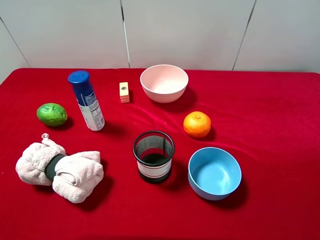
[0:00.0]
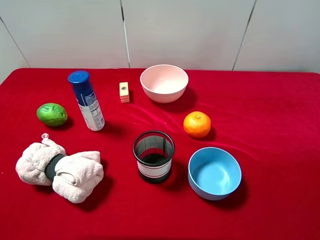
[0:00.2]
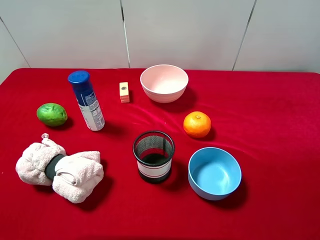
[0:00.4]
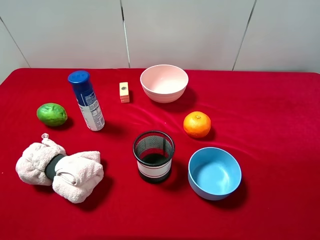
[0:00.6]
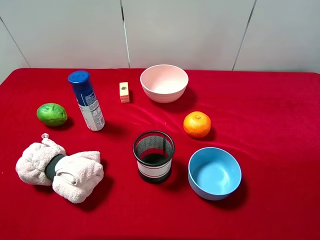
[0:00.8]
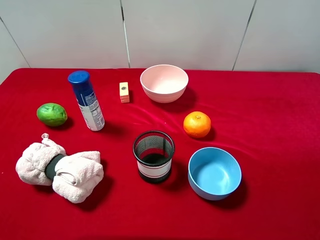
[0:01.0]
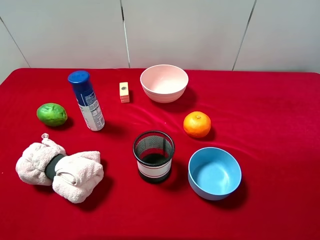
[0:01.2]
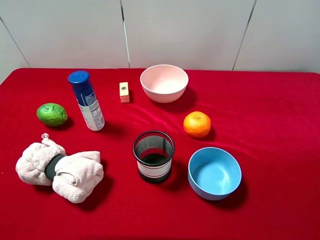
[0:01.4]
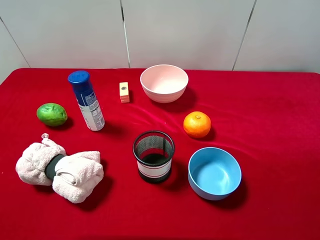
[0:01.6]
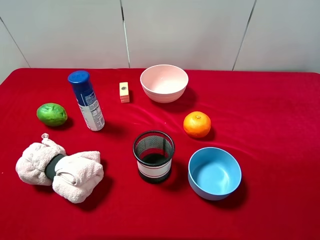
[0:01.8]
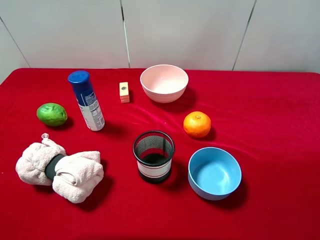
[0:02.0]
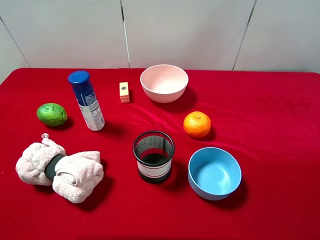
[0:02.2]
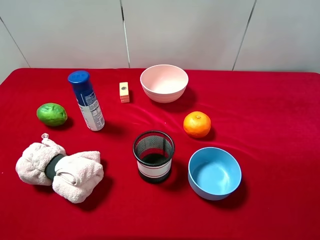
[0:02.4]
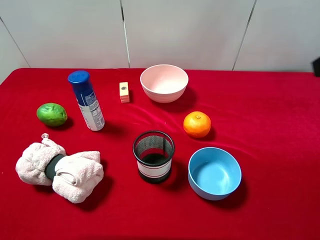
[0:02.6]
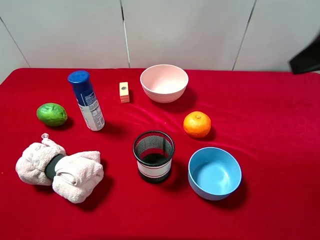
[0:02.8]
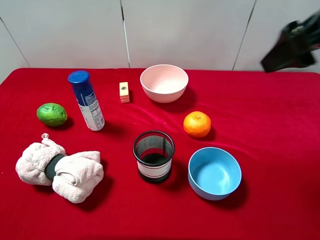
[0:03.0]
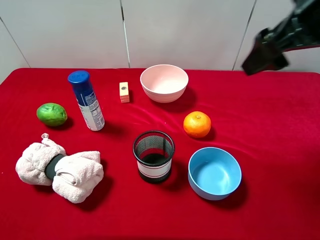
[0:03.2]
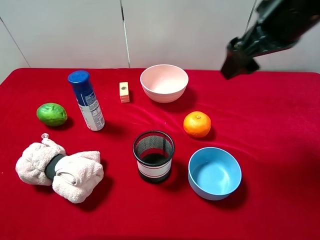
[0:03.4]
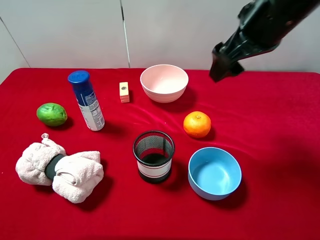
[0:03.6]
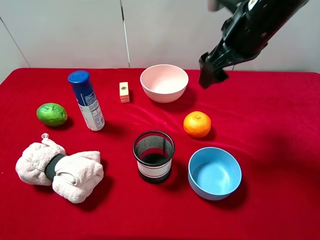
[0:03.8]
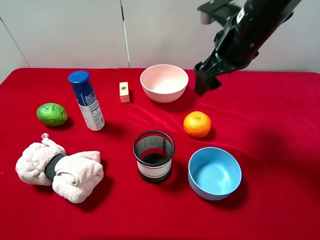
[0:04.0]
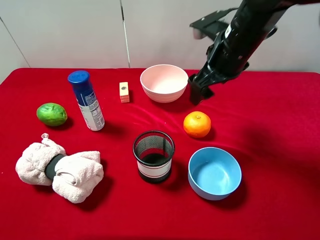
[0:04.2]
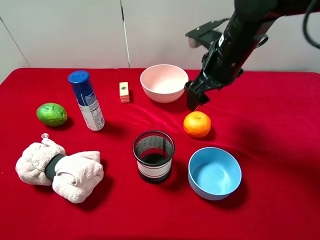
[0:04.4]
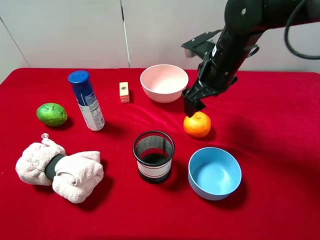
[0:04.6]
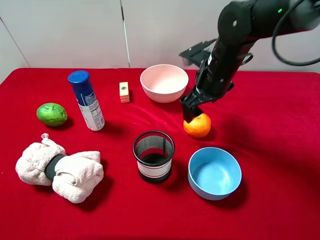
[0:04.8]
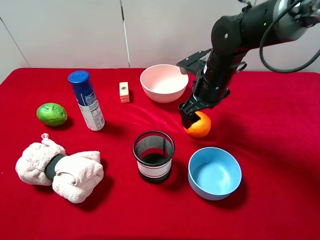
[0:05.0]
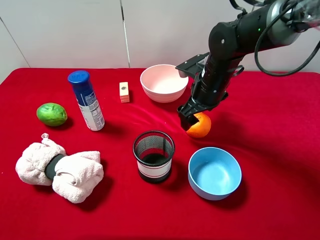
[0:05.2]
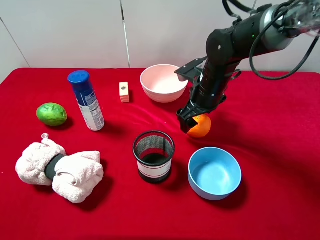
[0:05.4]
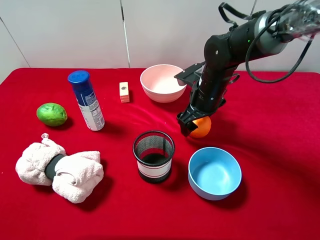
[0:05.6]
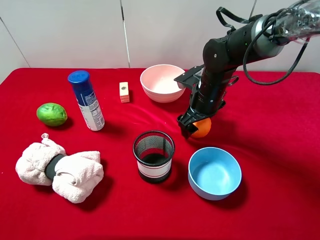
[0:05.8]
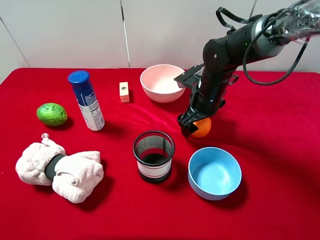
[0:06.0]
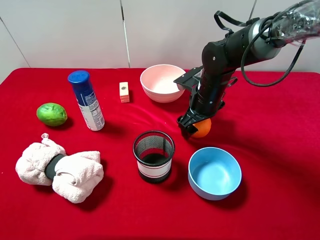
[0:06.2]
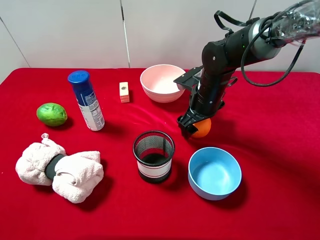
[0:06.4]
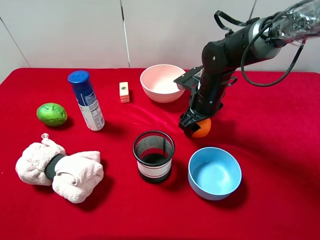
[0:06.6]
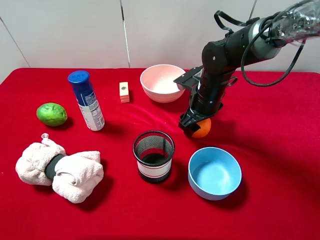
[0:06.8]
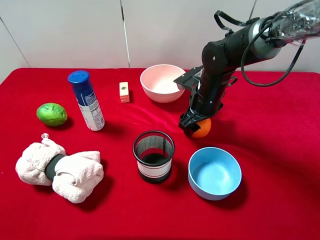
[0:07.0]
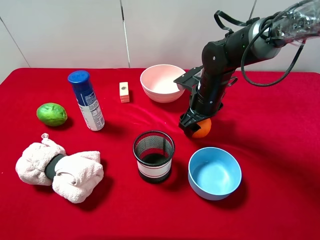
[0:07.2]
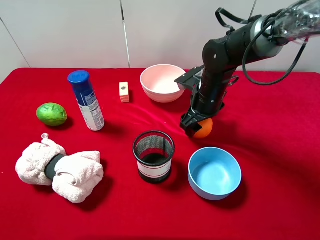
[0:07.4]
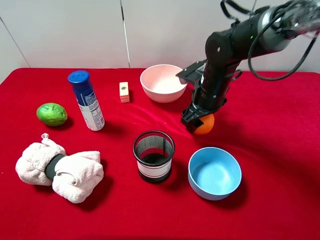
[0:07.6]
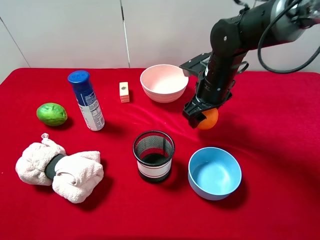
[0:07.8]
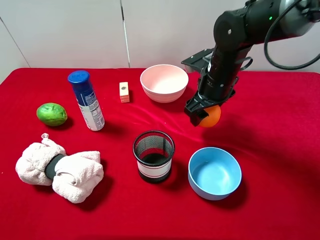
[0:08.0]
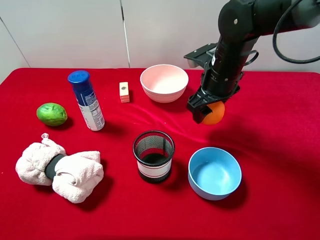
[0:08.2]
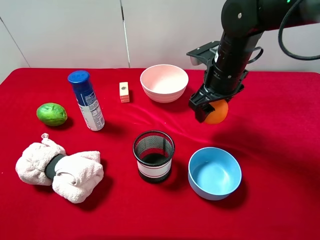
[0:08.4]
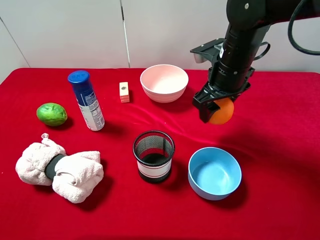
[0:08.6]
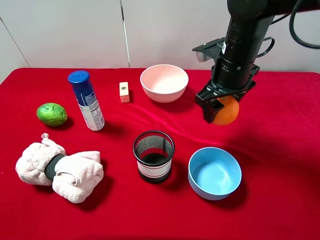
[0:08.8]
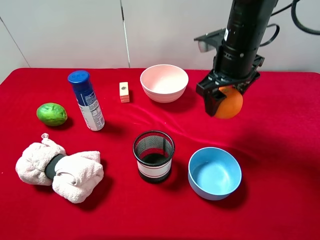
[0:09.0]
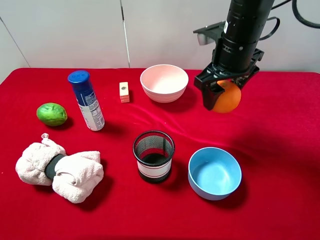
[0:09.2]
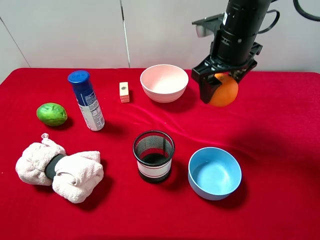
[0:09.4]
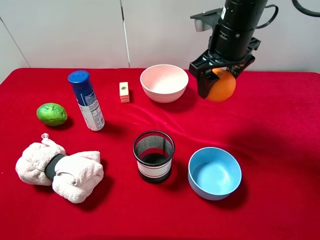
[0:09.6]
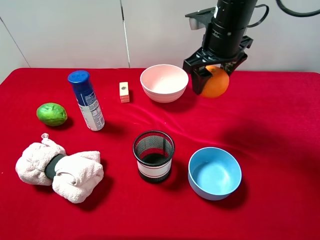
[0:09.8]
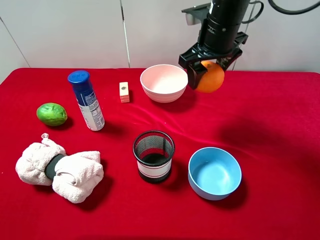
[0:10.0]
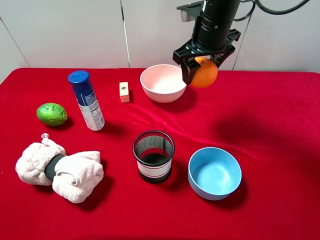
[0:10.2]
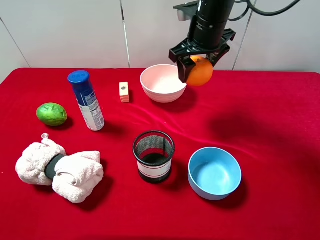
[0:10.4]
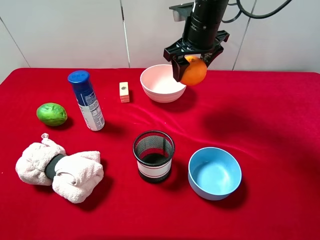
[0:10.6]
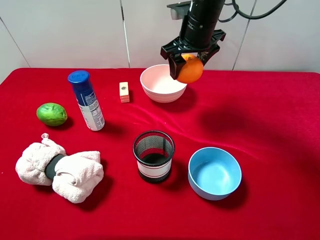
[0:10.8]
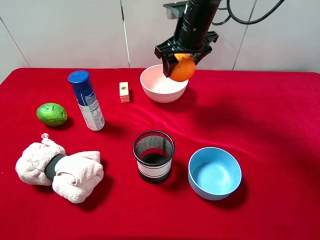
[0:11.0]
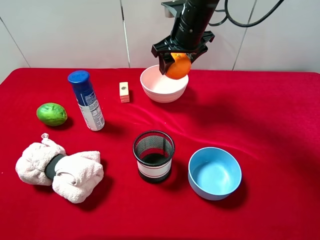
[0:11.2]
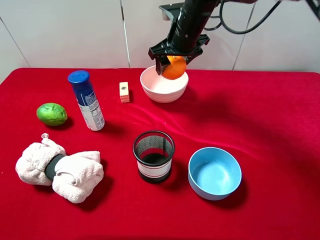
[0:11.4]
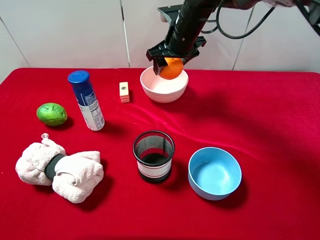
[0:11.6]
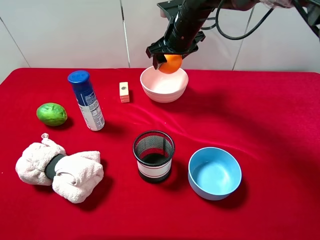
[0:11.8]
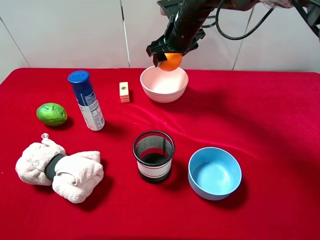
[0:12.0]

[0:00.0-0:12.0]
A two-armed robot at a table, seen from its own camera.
Task of the whole recording: pick up an item with a gripper and place it in a random container on the desktop.
0:00.0 to 0:01.6: Both grippers stay about where they are.
0:01.6 to 0:03.0: The right gripper goes about 20 cm forward.
0:03.0 to 0:04.4: The right gripper moves downward, to the left and forward, some 20 cm.
0:04.4 to 0:06.0: The right gripper shifts approximately 10 cm downward.
0:06.0 to 0:07.6: The right gripper closes up.
0:07.6 to 0:09.0: The right gripper heads upward, covering about 10 cm.
0:09.0 to 0:10.4: The right gripper goes approximately 5 cm forward.
0:10.4 to 0:12.0: The right gripper is displaced forward by about 5 cm.

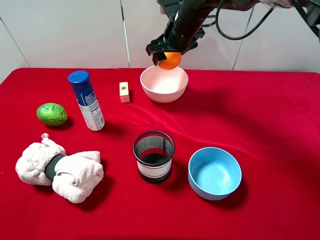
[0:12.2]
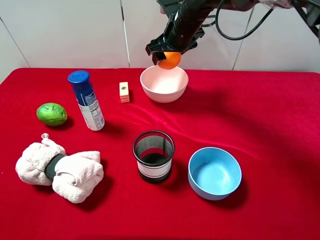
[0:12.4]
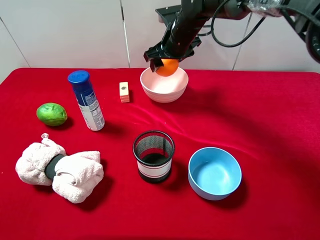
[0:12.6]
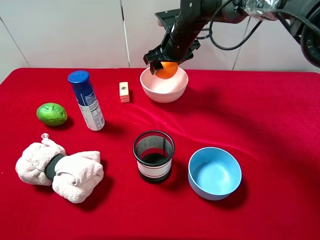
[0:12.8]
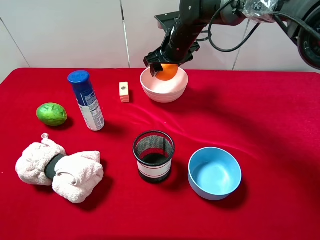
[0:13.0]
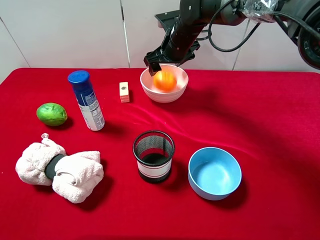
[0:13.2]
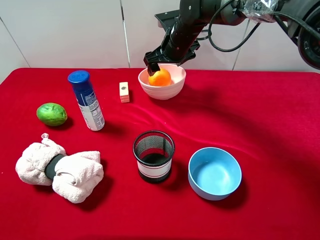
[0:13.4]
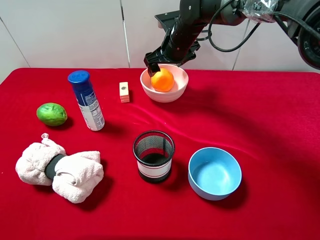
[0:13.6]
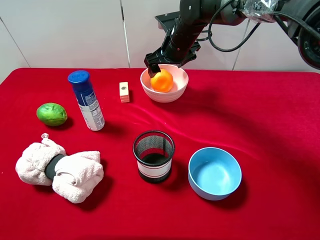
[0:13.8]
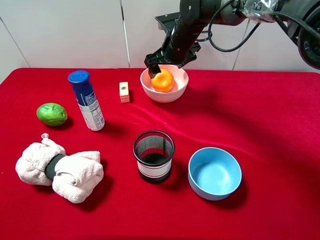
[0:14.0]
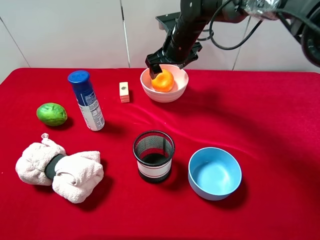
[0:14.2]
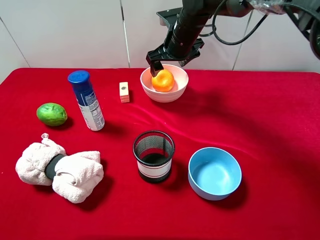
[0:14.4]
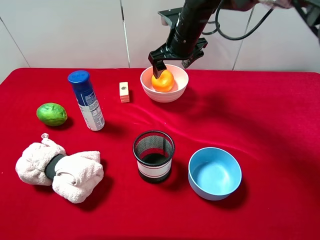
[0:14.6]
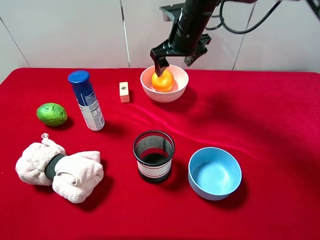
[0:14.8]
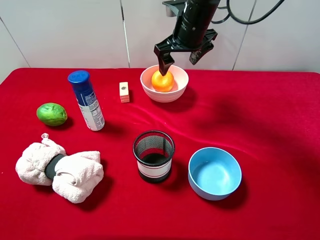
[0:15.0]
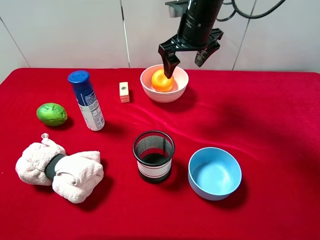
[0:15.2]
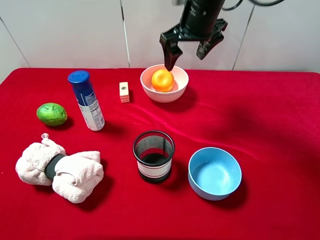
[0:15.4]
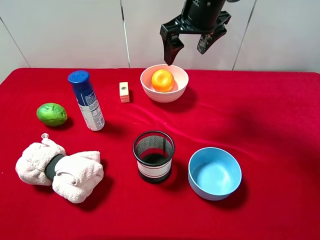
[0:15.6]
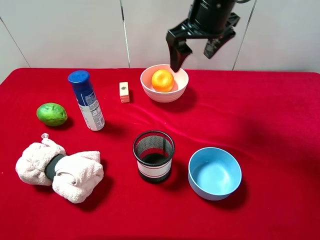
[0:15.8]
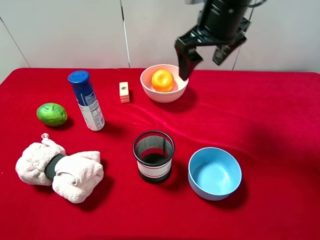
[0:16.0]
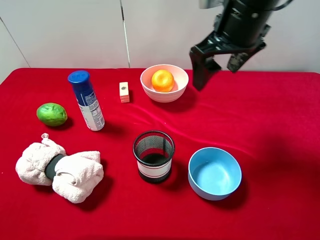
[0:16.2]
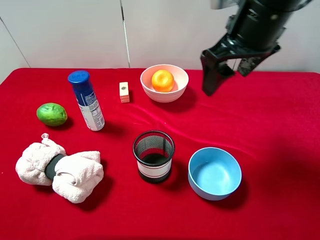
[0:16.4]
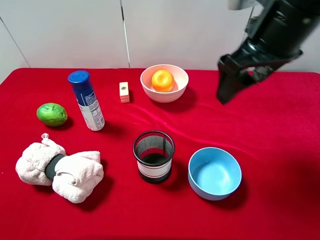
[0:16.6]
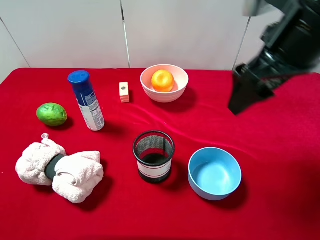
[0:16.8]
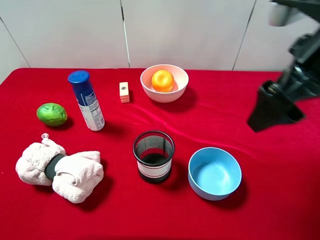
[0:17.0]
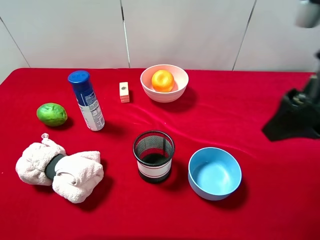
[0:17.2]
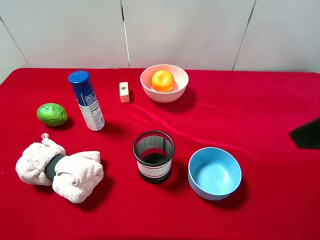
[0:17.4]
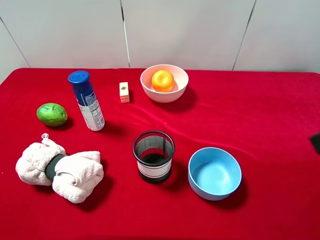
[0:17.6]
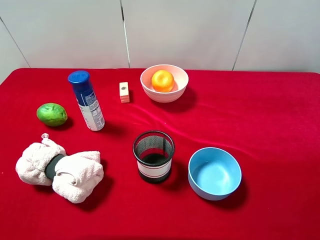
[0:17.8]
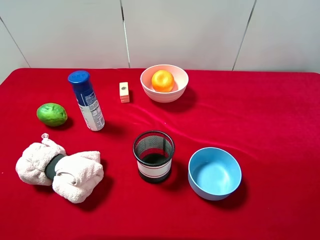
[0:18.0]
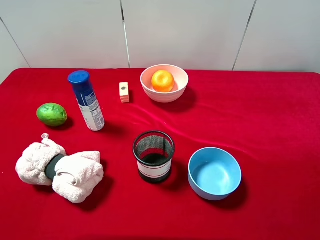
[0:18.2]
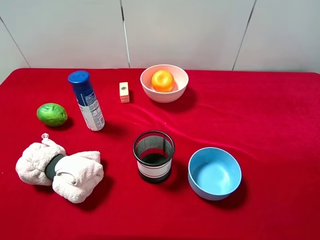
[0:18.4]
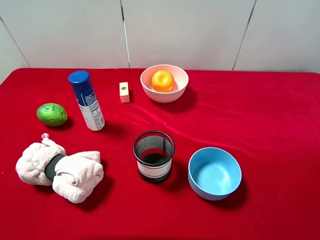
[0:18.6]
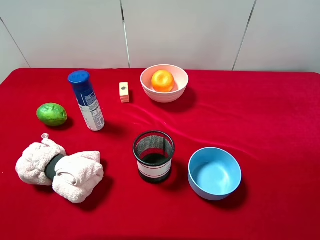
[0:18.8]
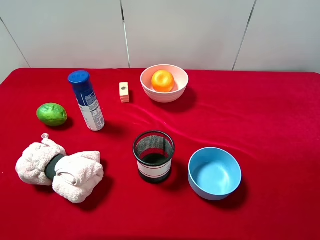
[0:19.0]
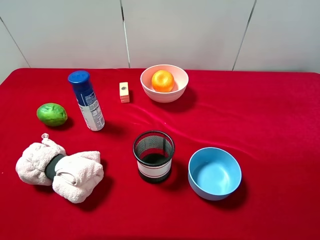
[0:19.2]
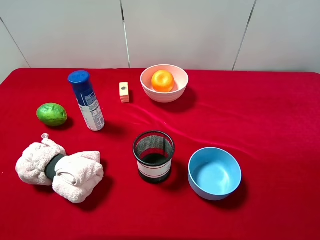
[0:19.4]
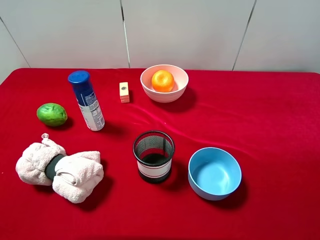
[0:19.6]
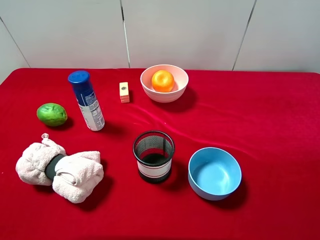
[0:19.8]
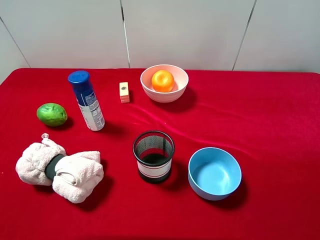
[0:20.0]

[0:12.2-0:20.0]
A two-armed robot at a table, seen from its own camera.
Task of the whole recording: pick up an item with a gripper and place it in a random container on the desktop.
0:12.2 to 0:13.8: The right gripper opens its fingers.
0:13.8 to 0:15.4: The right gripper travels upward and backward by roughly 10 cm.
0:15.4 to 0:16.8: The right gripper goes approximately 20 cm backward and to the right.
0:16.8 to 0:18.4: The right gripper moves backward and to the right, approximately 25 cm.
